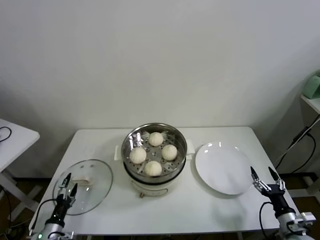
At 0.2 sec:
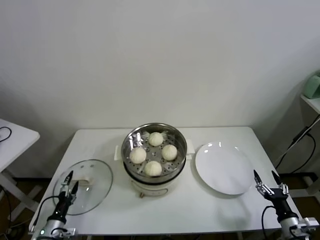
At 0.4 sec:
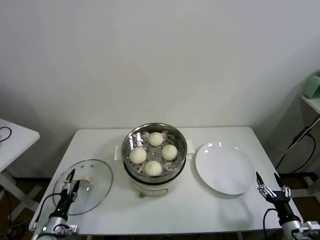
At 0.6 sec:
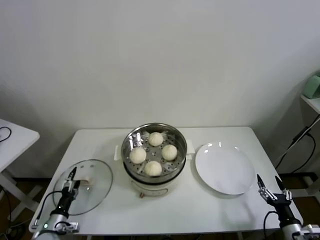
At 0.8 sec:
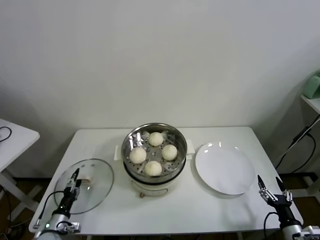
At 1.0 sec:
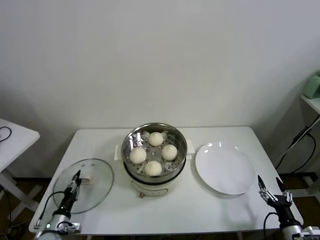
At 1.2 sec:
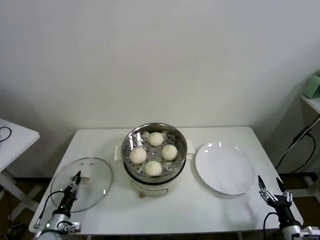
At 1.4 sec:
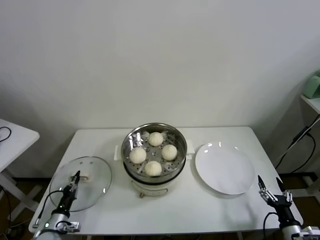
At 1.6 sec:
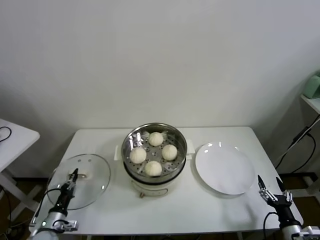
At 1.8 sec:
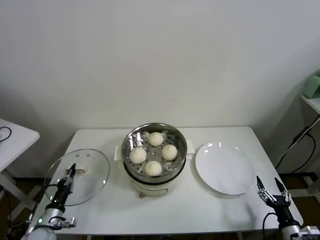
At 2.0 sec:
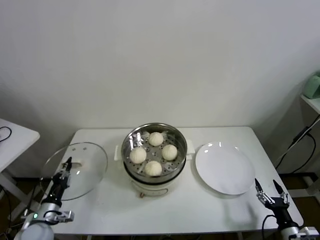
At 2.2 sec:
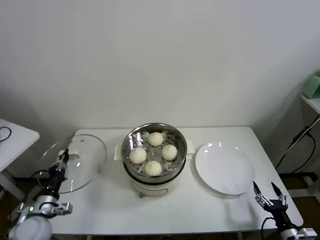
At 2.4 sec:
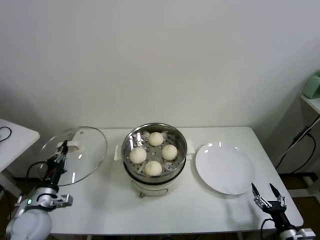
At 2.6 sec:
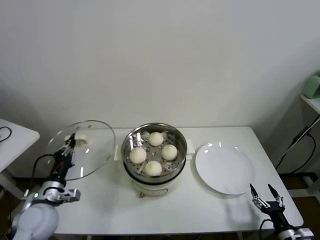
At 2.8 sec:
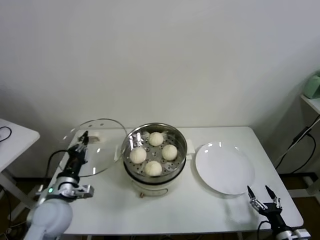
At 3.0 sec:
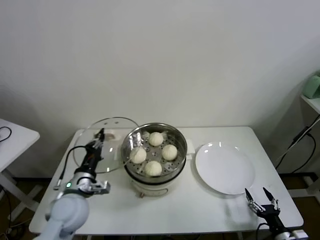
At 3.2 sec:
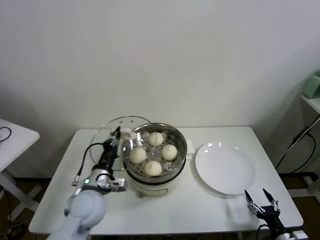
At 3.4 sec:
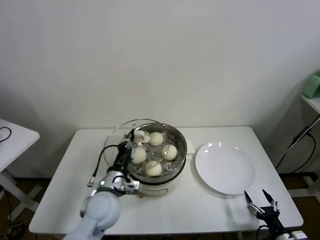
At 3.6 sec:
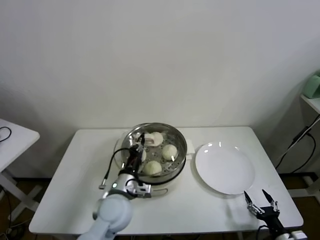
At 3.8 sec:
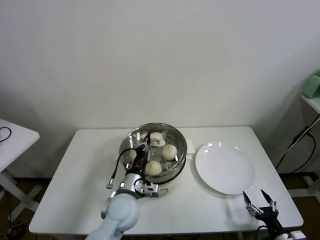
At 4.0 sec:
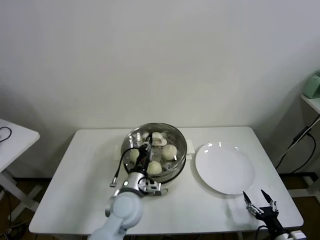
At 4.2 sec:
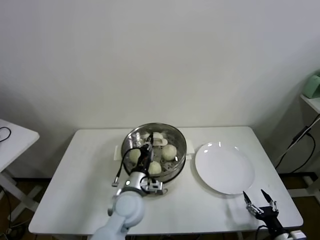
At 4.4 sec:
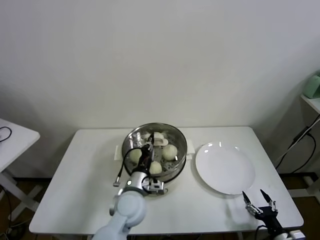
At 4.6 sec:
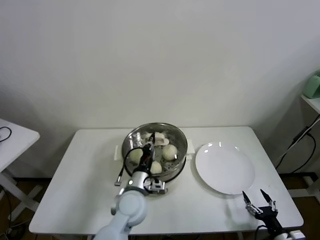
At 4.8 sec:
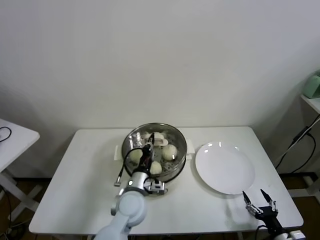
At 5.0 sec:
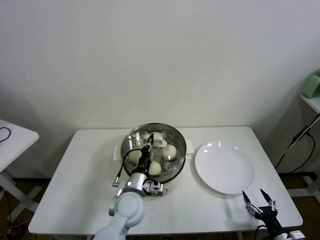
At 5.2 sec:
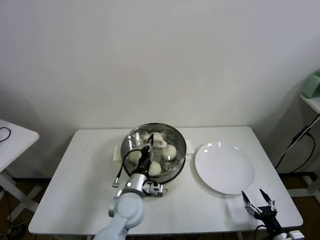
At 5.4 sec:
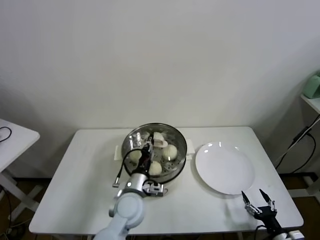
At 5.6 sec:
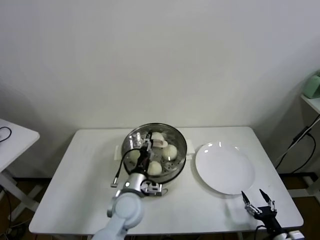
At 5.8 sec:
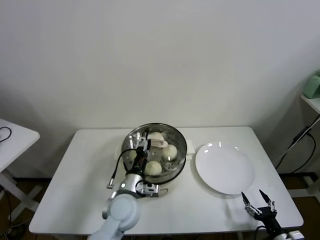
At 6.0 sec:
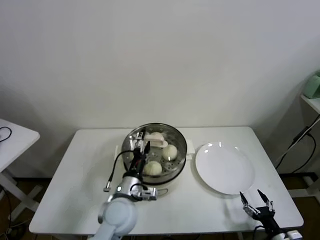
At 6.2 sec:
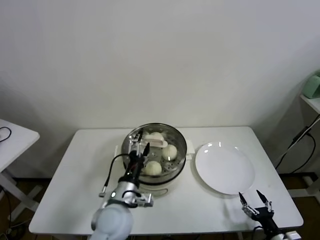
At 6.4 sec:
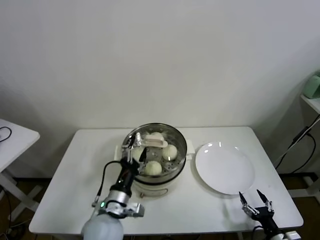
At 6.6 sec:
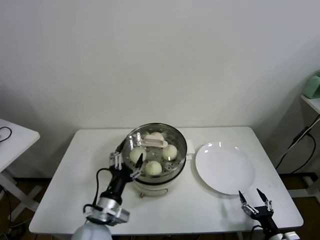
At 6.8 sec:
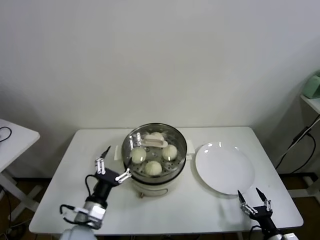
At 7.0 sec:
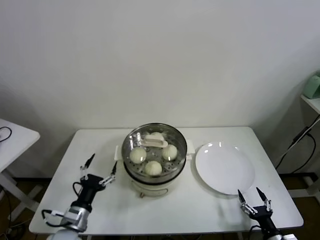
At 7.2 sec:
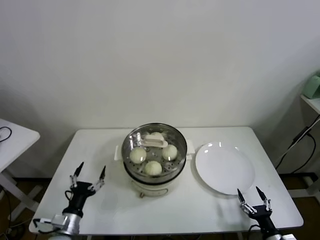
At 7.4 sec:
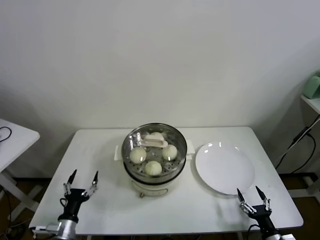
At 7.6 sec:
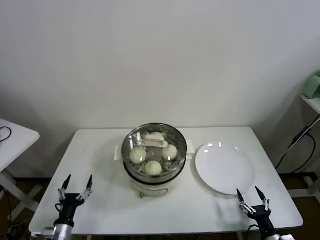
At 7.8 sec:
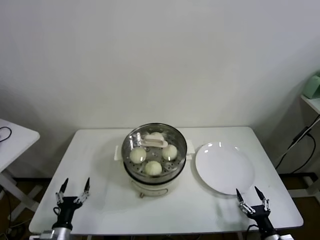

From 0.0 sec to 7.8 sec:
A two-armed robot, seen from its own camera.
Task of the whole recording: take steamed baozi put them in steamer.
From 0.0 sec to 1.6 sec: The left gripper closes.
From 1.6 sec to 3.2 sec: The left gripper heads upward and to the right, covering some 30 cm.
From 3.2 sec to 4.6 sec: The left gripper is displaced to the right by roughly 15 cm.
From 4.6 sec to 6.2 sec: The left gripper moves some 5 cm, and opens up.
From 6.2 sec to 7.8 sec: The left gripper moves to the left and downward, about 30 cm.
